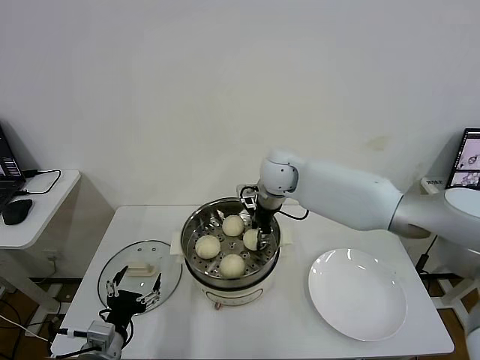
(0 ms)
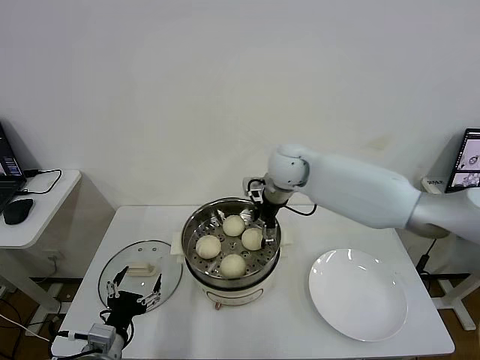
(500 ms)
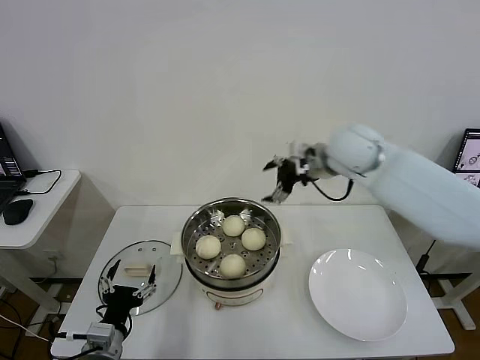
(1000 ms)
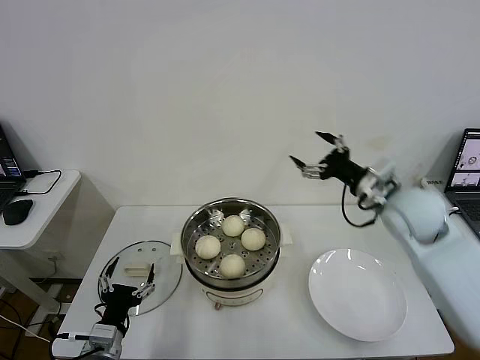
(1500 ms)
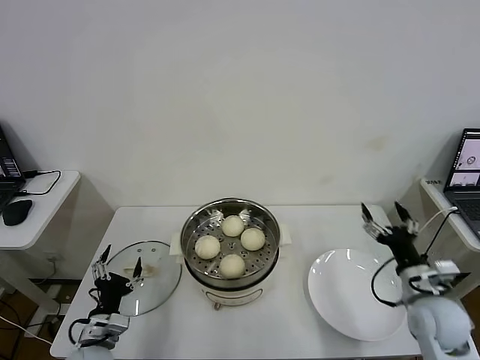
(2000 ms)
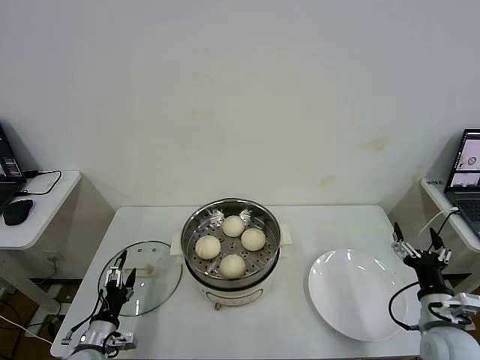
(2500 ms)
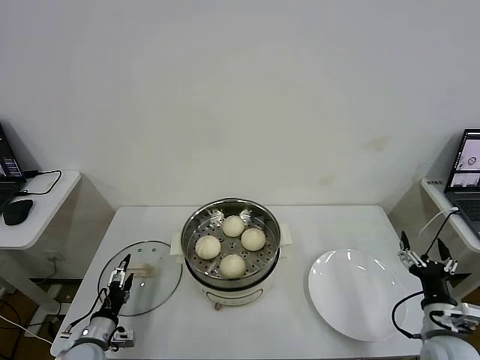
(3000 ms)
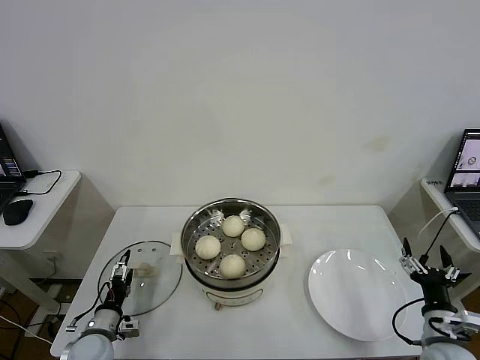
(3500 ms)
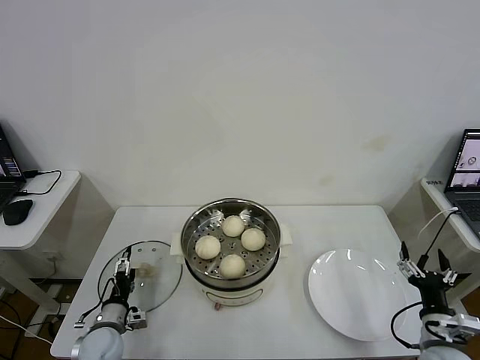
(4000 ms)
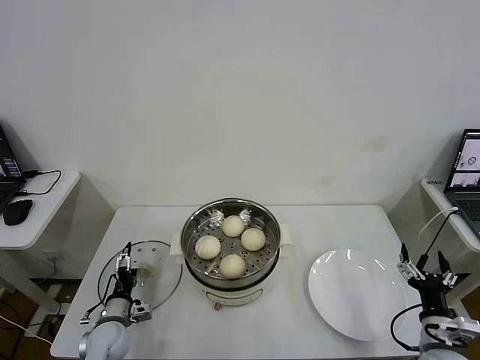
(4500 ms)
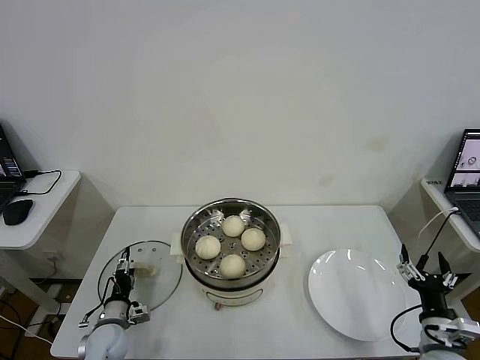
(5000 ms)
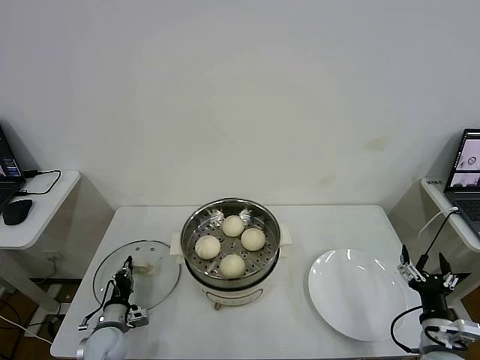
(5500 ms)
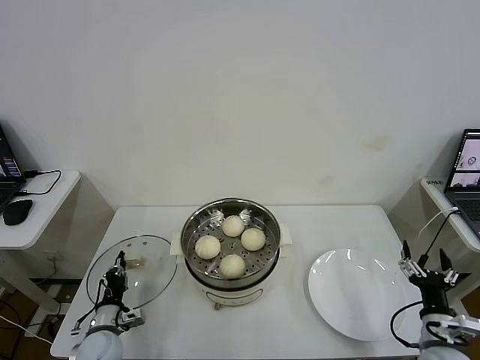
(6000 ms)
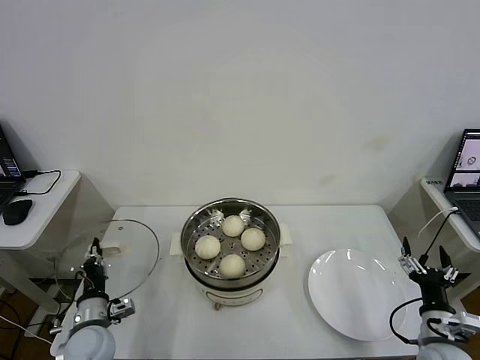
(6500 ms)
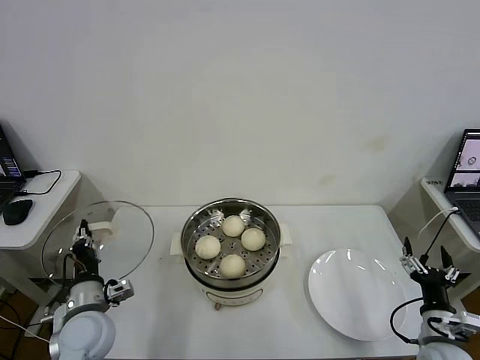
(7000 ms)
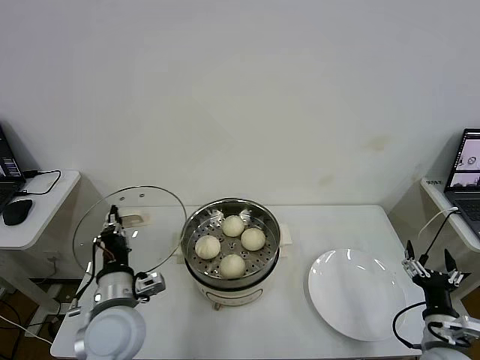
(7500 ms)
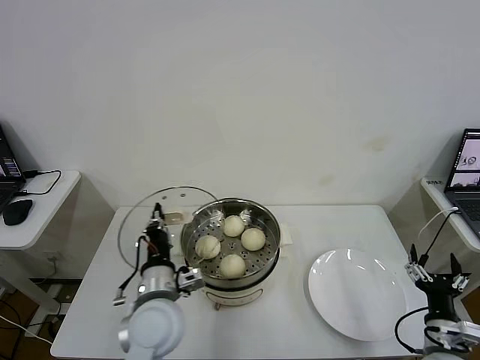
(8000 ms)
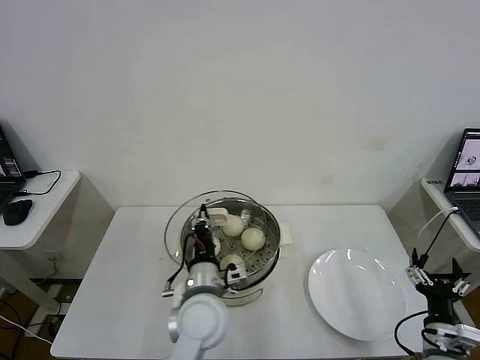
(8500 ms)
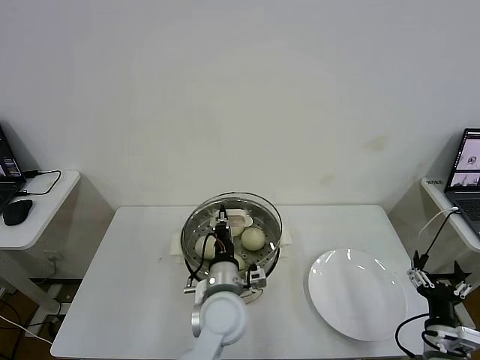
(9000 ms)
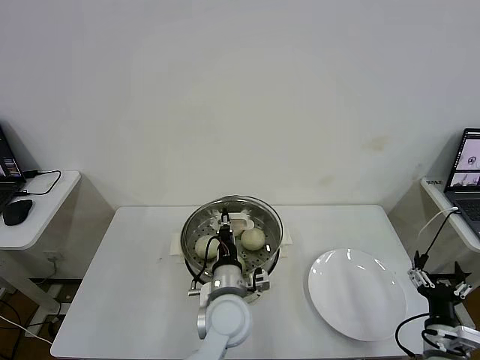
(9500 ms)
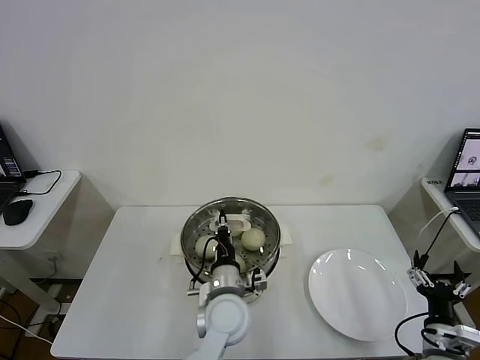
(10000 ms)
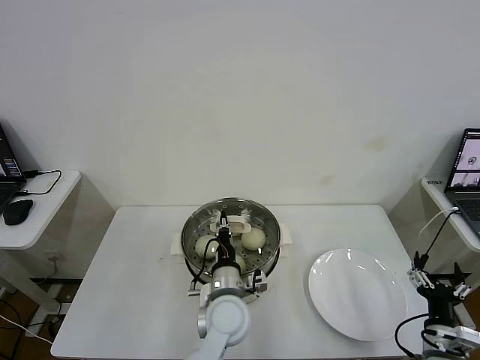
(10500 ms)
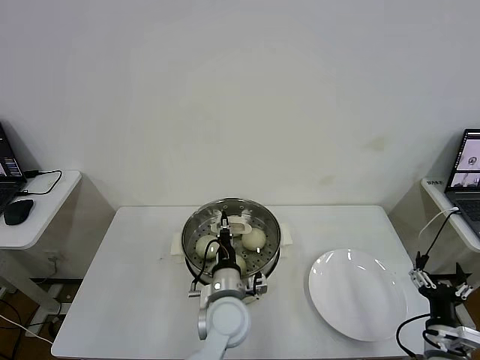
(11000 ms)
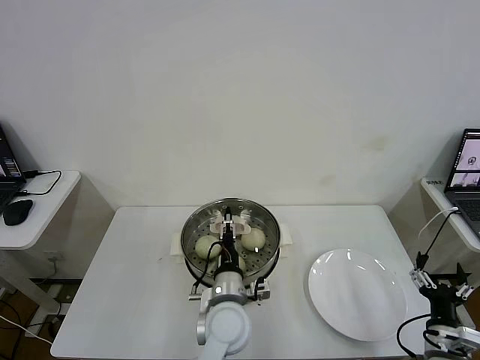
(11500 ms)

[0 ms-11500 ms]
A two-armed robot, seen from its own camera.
Task of the whole recording: take steamed baozi put them in steamer then cover it.
Step, 1000 ms to 5500 ms: Grasp the pot lid with left gripper.
0 ms to 2000 ms: The right gripper is displaced to the right, backward and downward by some 40 cm, and opens. The left gripper ends up approximately 5 cm from where it was.
2000 ms to 4000 ms: The left gripper goes roughly 10 cm downward and forward; the right gripper is displaced backward and downward by about 10 cm.
4000 ms to 6000 ms: The left gripper closes its fingers.
6000 ms to 7500 ms: The left gripper shifts roughly 20 cm upward and to the right.
7500 ms to 9500 ms: The left gripper is displaced to the right by approximately 20 cm.
9500 ms to 11500 ms: The left gripper opens.

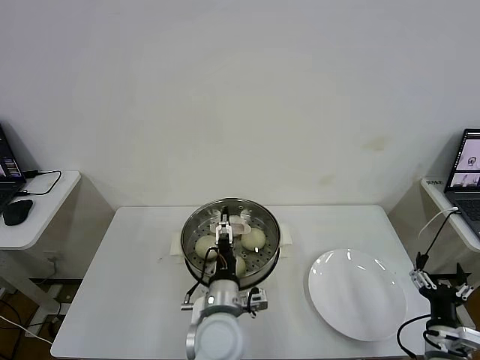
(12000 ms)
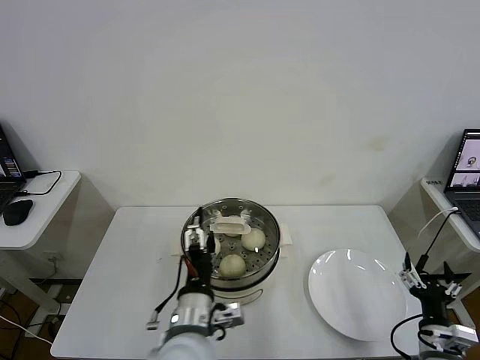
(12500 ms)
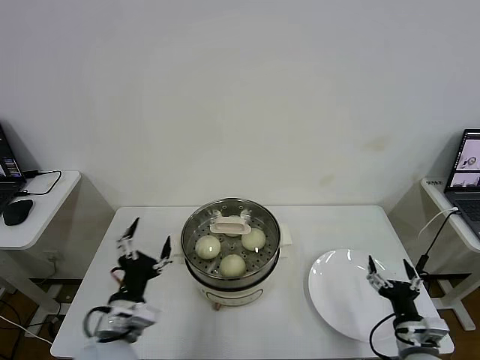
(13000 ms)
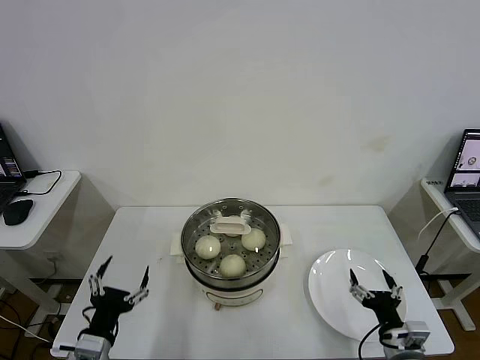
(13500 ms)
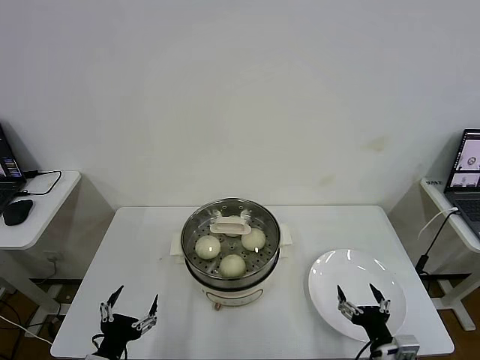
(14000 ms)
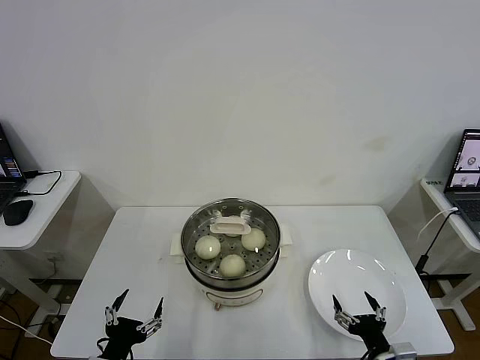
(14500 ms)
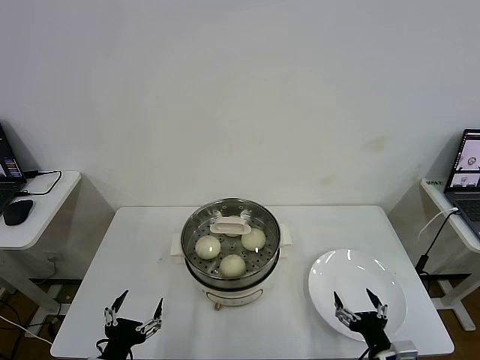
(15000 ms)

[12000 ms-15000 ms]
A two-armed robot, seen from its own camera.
Task of the whole recording: take steamed baozi put them in steamer then cover it.
12000 ms to 13500 ms: The left gripper travels to the left by about 25 cm. Meanwhile the right gripper heads to the left, covering some 5 cm.
13500 ms to 15000 ms: The right gripper moves about 5 cm; the left gripper moves about 5 cm.
